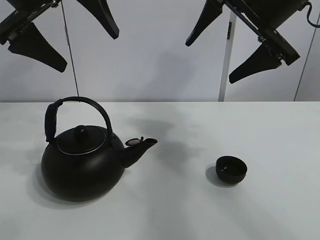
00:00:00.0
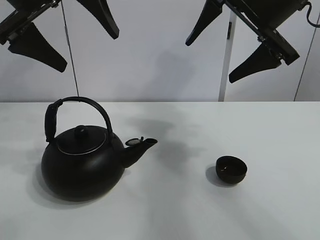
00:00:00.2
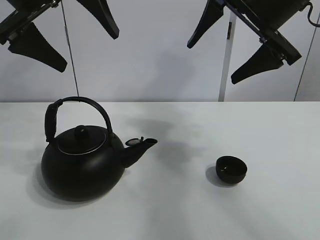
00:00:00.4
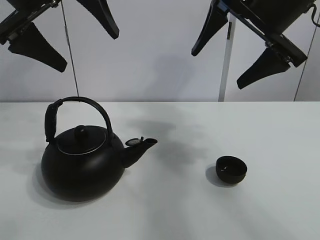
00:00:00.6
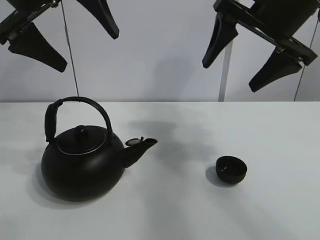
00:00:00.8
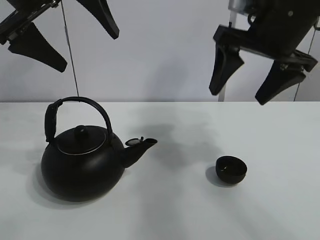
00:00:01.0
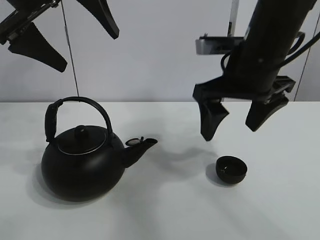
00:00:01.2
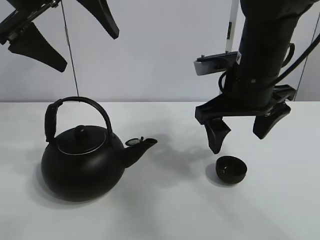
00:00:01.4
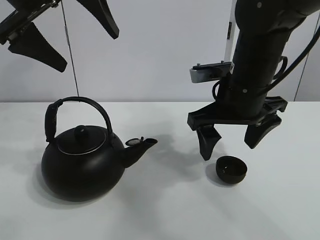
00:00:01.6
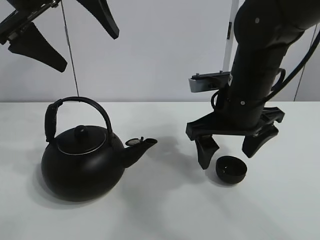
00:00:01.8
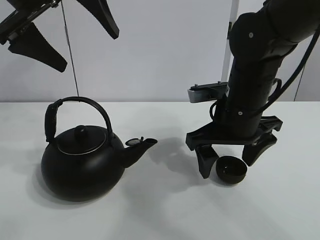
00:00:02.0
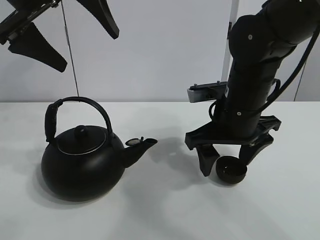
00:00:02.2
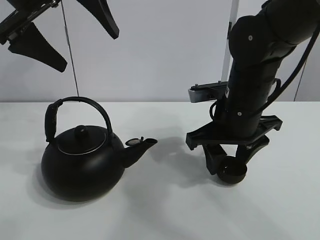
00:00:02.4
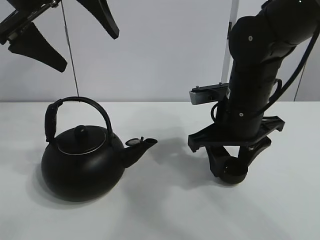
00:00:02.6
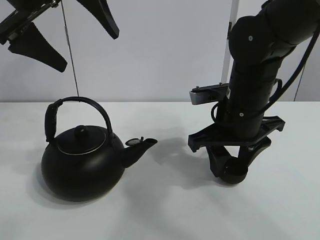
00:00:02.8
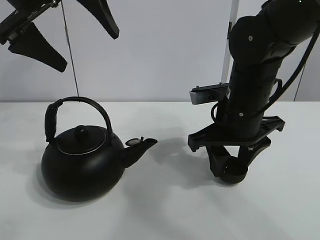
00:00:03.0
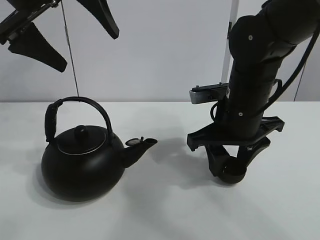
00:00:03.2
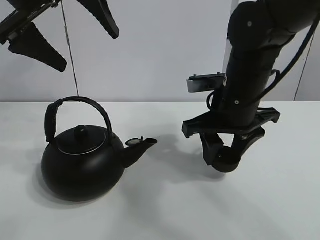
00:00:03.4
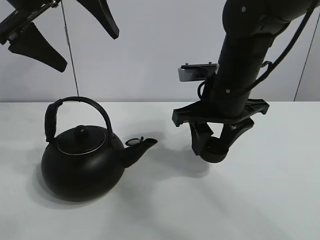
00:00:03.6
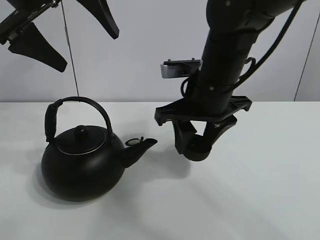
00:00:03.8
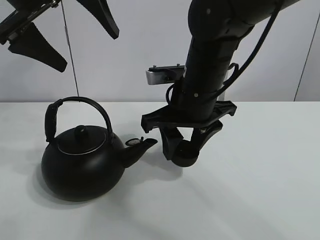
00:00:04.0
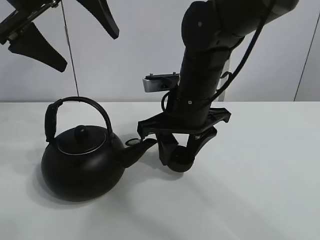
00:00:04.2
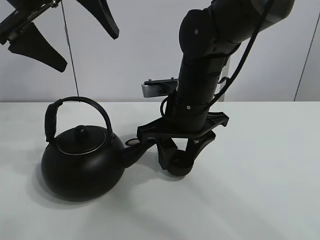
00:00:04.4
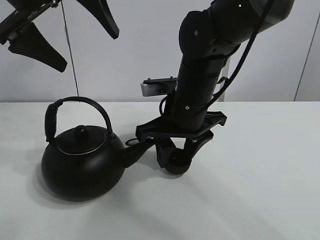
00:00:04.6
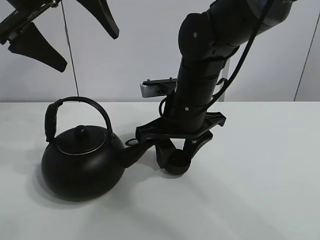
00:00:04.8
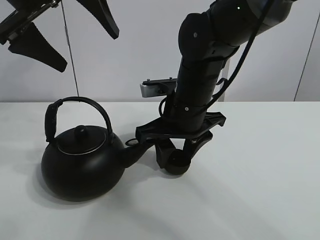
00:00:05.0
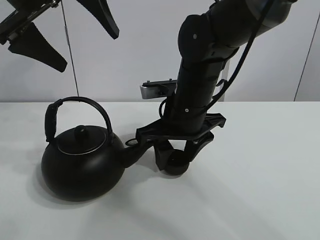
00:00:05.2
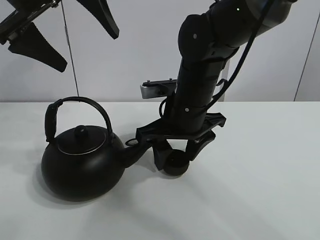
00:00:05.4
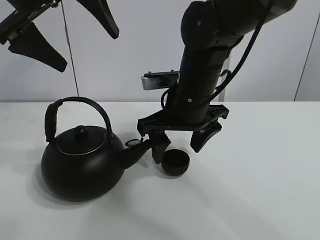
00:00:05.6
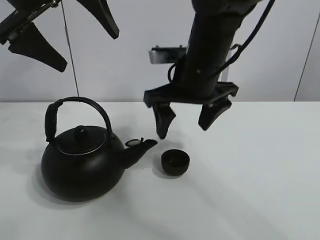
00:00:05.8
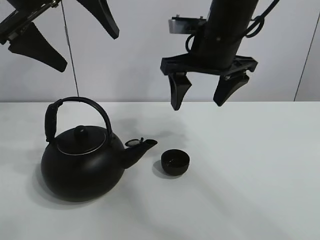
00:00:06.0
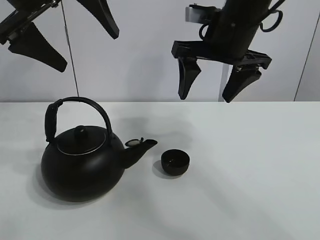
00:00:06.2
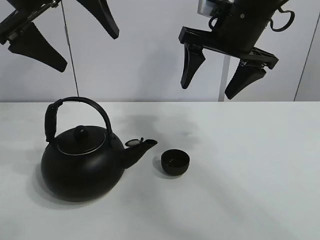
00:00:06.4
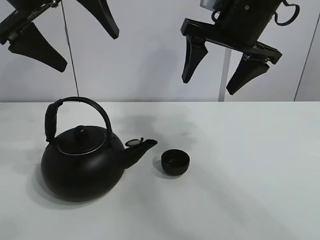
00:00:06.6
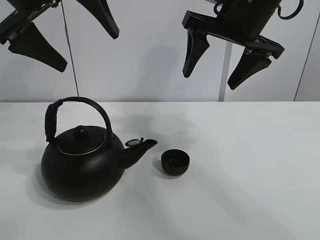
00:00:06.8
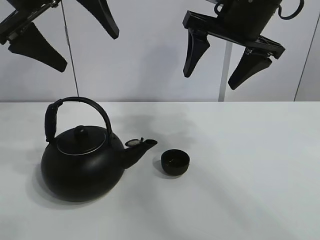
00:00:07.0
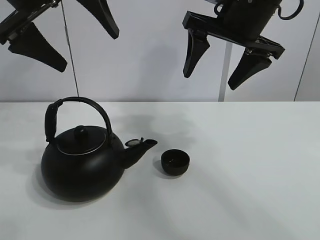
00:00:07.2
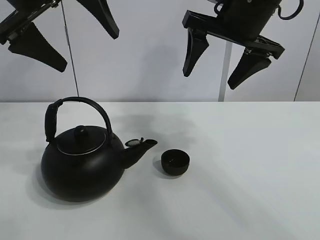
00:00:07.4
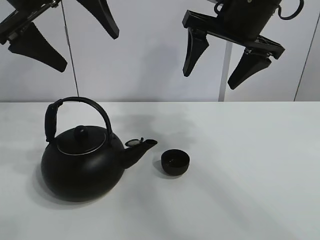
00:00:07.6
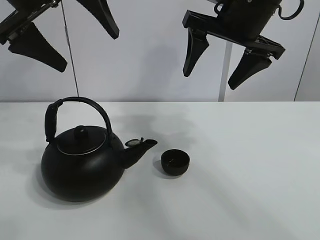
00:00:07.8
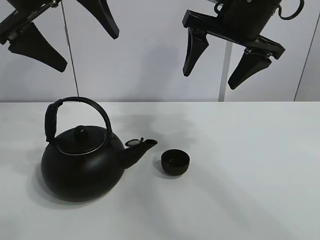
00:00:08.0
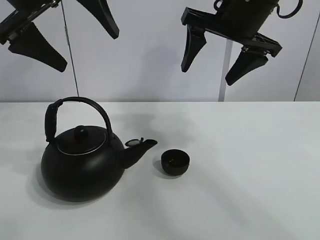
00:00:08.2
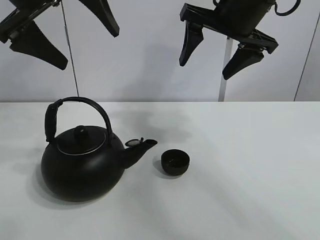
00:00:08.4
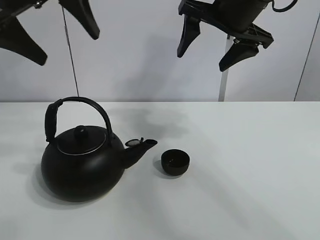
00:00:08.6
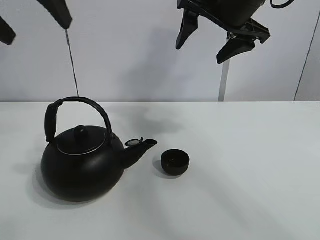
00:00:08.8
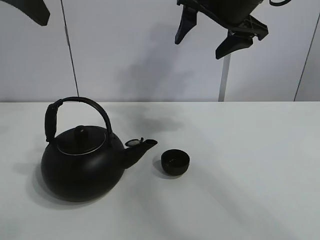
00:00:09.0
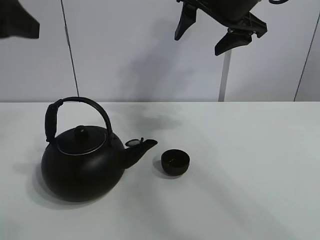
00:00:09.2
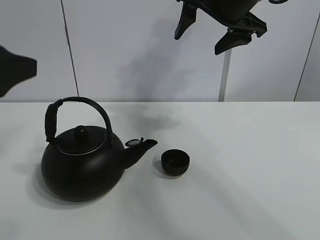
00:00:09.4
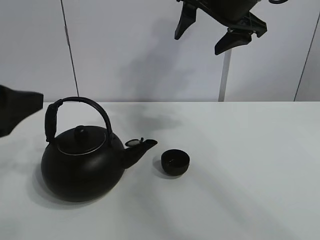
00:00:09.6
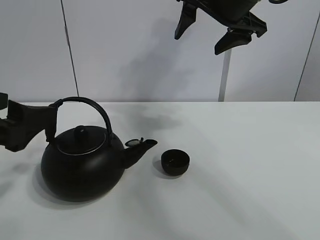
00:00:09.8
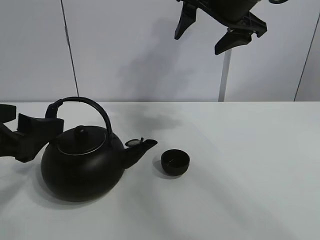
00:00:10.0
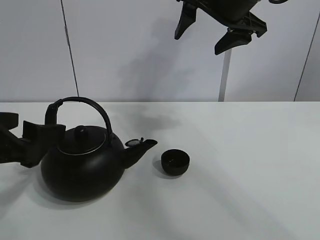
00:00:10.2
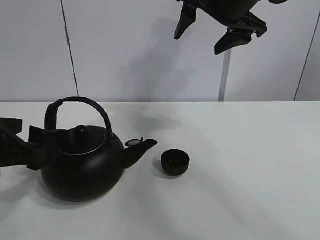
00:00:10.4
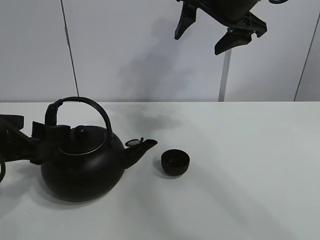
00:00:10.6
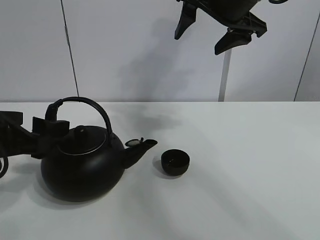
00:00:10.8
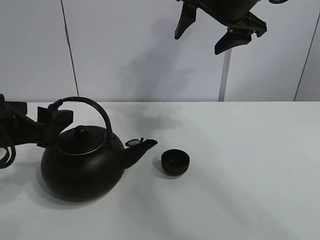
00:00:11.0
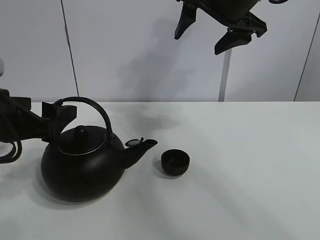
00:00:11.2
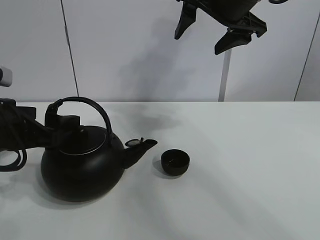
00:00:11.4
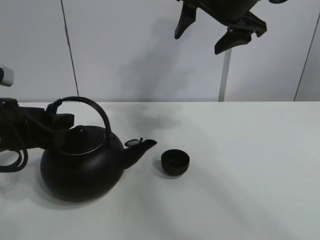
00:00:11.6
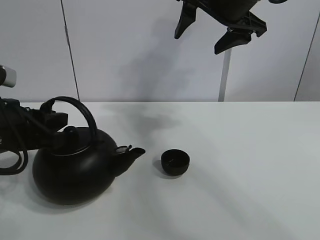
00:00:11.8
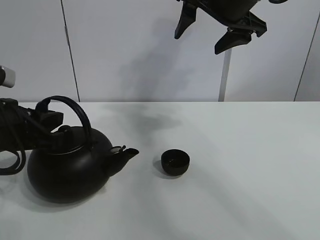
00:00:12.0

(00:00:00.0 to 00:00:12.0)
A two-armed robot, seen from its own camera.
Task of the whole recording: pour tea into the teacup.
Step, 00:00:00.0 - 00:00:02.4: Pick up the teacup with the right gripper.
Step, 00:00:02.6 - 00:00:05.4: Place the teacup in the center of view with the right gripper.
00:00:01.6 - 00:00:03.0: The right gripper closes.
00:00:03.0 - 00:00:04.4: The right gripper goes roughly 5 cm to the left.
00:00:04.4 - 00:00:06.0: The right gripper goes roughly 10 cm upward, and opens up.
00:00:06.0 - 00:00:07.6: The right gripper shifts by approximately 5 cm.
00:00:07.6 - 00:00:09.0: The left gripper is displaced to the left by about 5 cm.
00:00:09.0 - 00:00:10.4: The left gripper is displaced downward by about 20 cm.
00:00:10.4 - 00:00:12.0: The left gripper closes up.

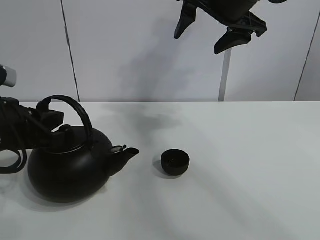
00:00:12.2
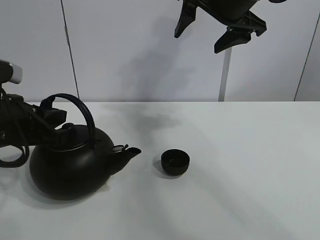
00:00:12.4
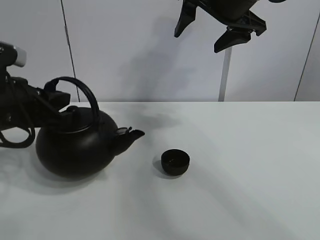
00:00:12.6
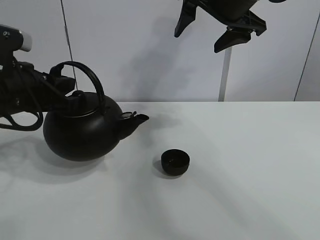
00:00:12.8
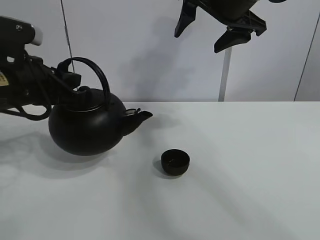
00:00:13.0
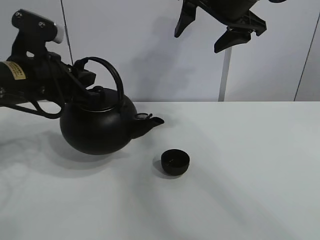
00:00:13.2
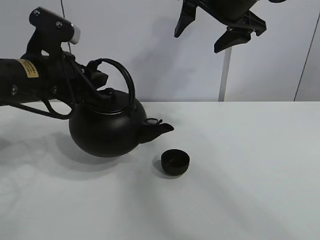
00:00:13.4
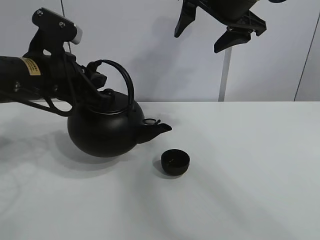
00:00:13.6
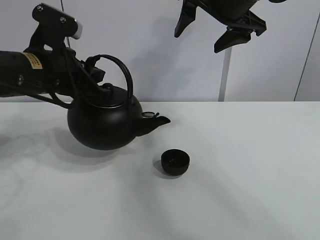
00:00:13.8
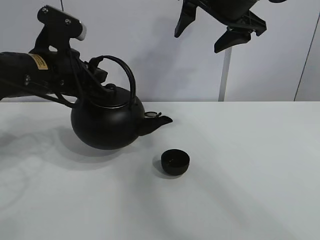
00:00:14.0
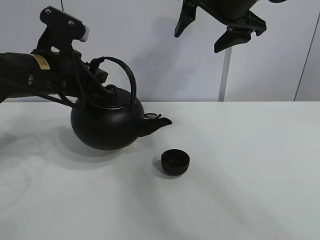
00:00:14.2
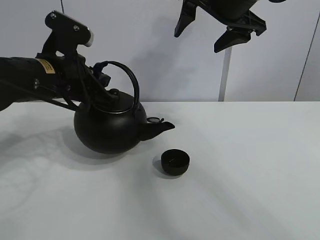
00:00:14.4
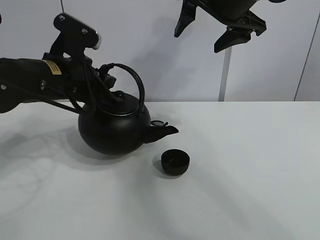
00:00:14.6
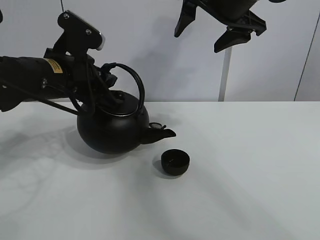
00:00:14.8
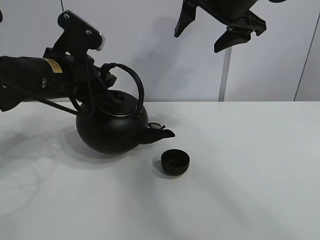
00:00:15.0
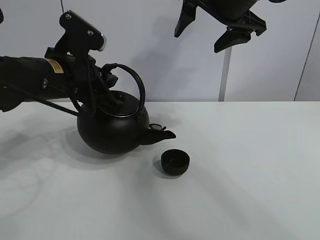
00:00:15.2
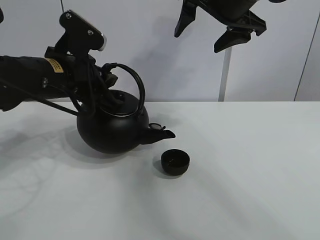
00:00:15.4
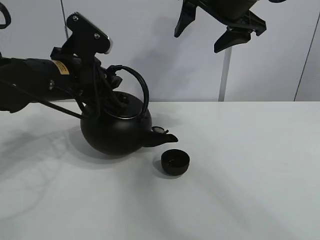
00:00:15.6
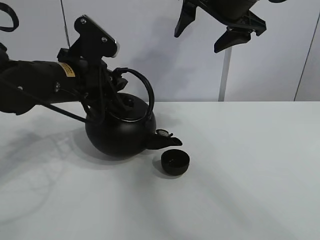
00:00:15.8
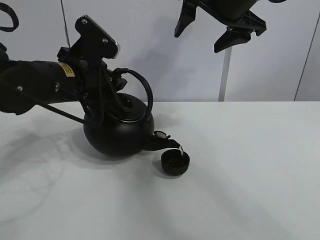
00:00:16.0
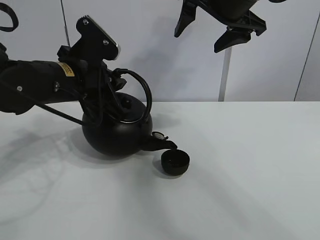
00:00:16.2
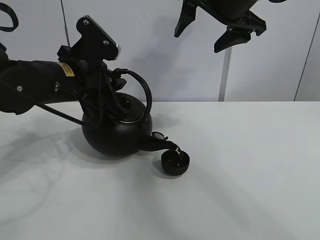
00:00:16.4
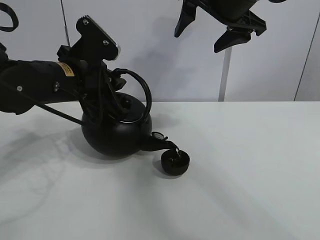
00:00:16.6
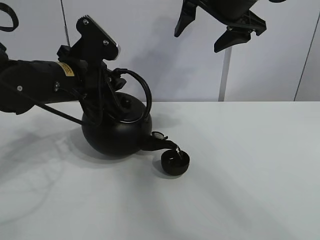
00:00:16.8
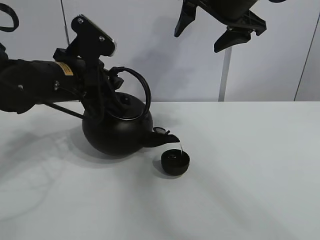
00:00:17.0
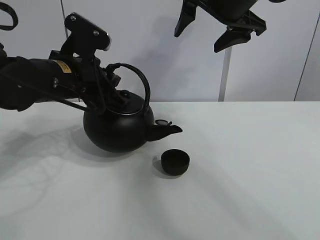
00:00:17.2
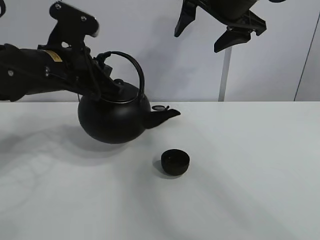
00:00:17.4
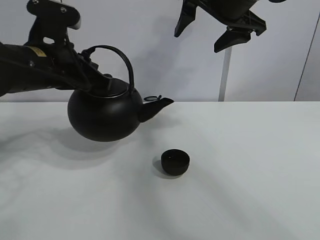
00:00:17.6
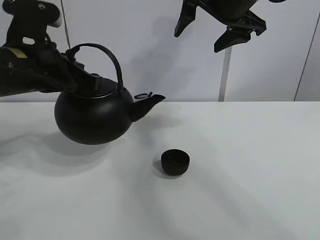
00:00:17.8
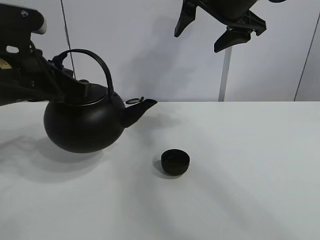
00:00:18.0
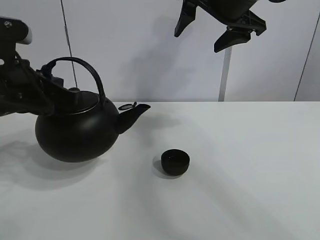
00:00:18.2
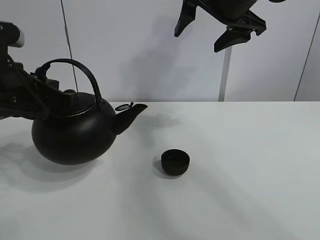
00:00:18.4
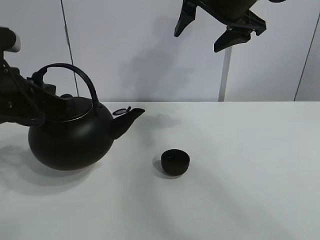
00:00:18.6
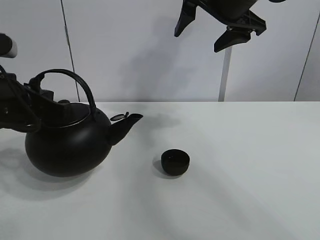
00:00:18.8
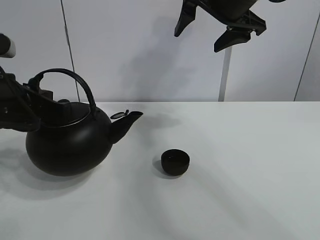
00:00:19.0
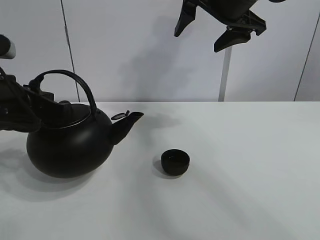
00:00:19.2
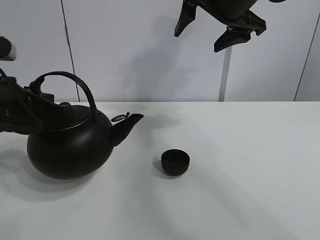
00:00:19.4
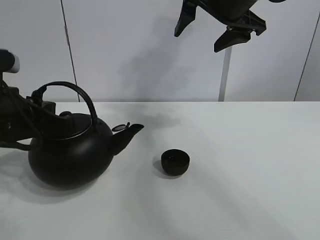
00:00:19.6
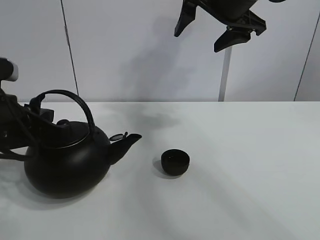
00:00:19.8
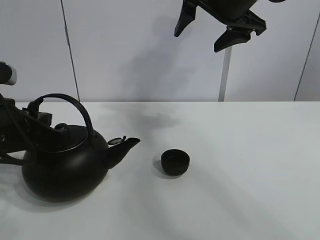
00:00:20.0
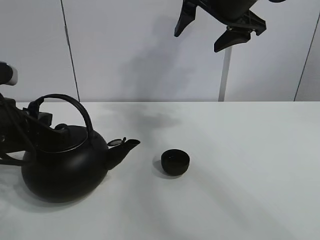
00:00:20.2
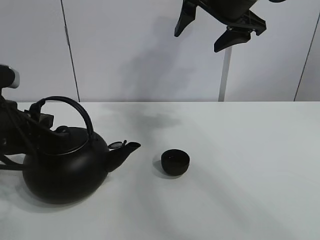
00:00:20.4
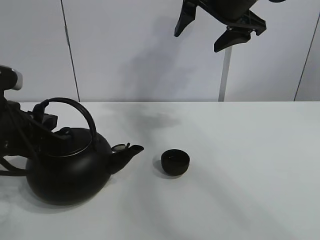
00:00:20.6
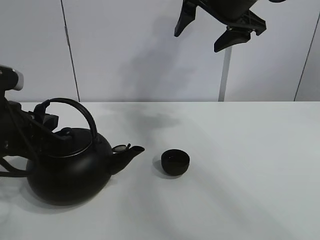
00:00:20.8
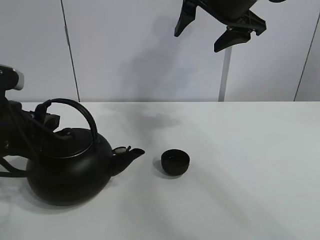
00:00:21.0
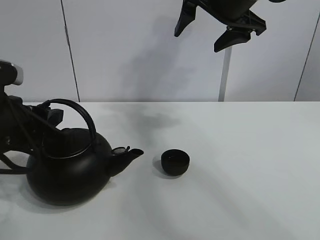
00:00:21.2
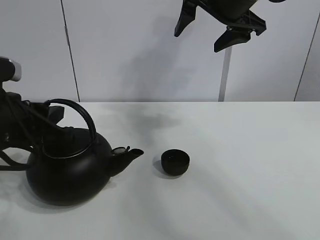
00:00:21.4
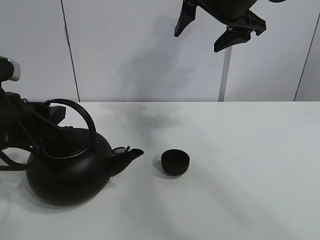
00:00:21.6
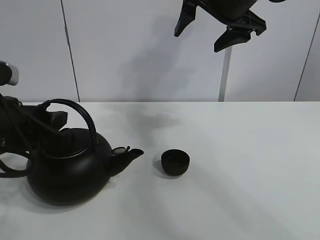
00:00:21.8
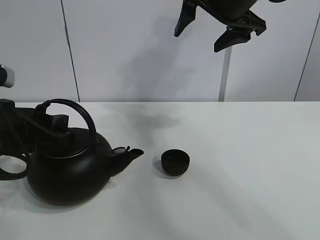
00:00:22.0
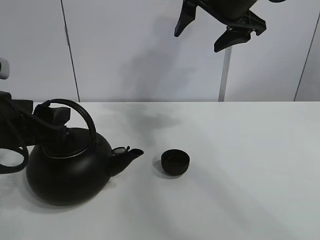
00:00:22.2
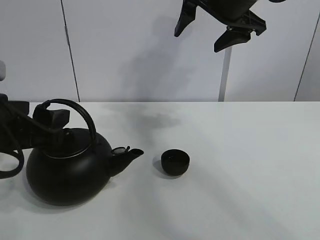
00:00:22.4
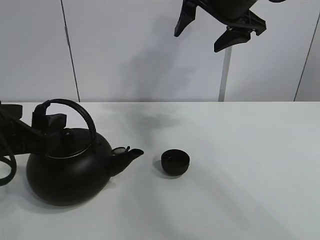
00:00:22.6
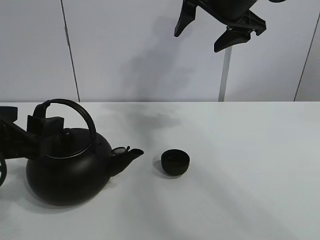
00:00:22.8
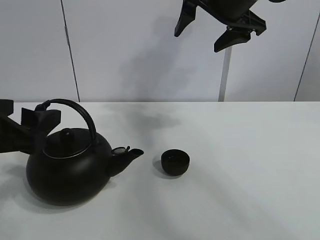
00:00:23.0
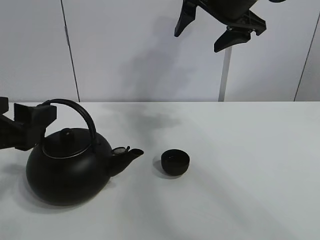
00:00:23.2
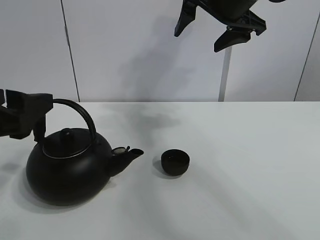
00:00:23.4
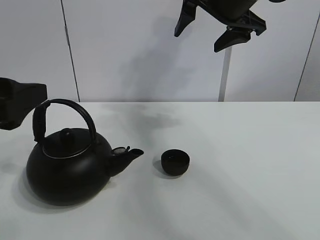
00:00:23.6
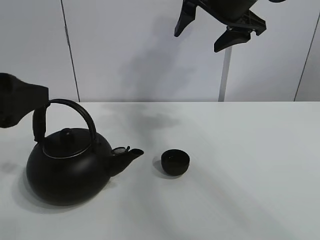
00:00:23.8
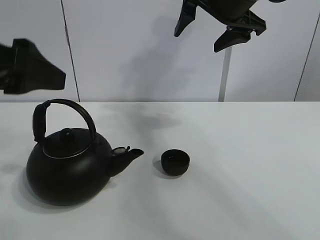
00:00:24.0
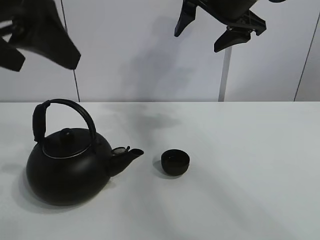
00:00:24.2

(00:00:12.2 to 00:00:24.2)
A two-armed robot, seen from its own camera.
Task of the whole recording: pour tea into the teacup.
Step, 00:00:12.4 - 00:00:17.0: Pour tea into the teacup with the left gripper.
00:00:12.2 - 00:00:13.8: The left gripper is displaced forward, to the right and upward by some 10 cm.
00:00:13.8 - 00:00:16.6: The grippers stay close to where they were, moving slightly.
00:00:16.6 - 00:00:18.2: The left gripper shifts roughly 10 cm backward and to the left.
00:00:18.2 - 00:00:19.8: The left gripper shifts by roughly 5 cm.
00:00:19.8 - 00:00:21.2: The grippers move only a little.
00:00:21.2 - 00:00:22.6: The left gripper opens up.
00:00:22.6 - 00:00:24.2: The left gripper is displaced upward by some 15 cm.
